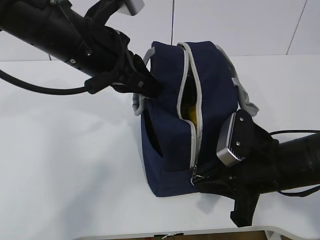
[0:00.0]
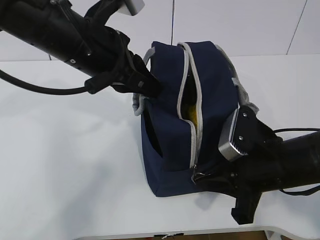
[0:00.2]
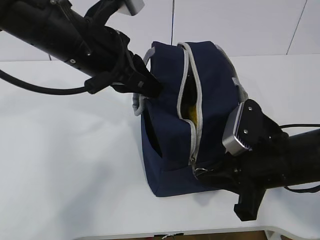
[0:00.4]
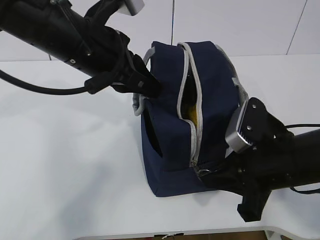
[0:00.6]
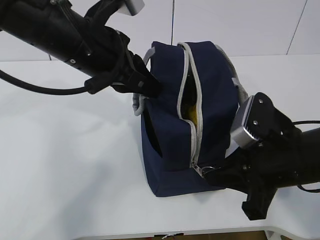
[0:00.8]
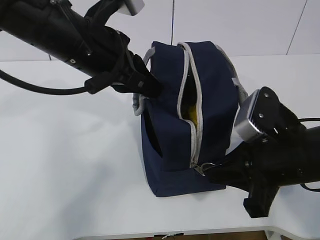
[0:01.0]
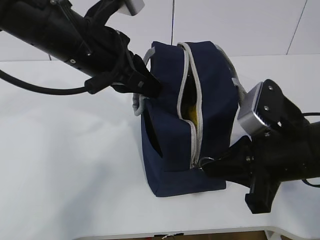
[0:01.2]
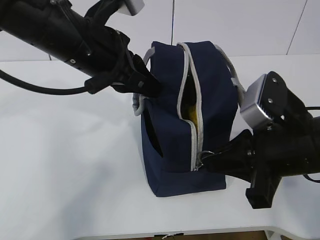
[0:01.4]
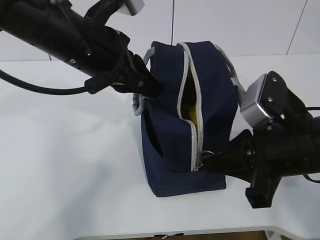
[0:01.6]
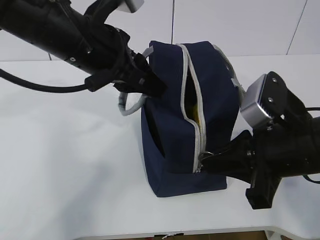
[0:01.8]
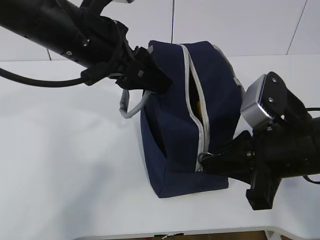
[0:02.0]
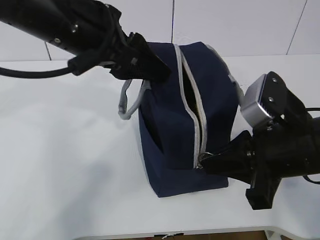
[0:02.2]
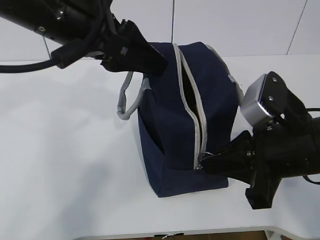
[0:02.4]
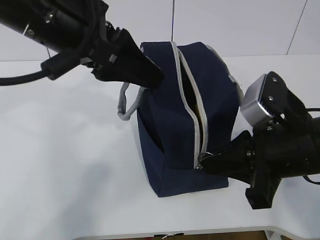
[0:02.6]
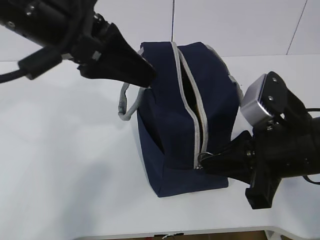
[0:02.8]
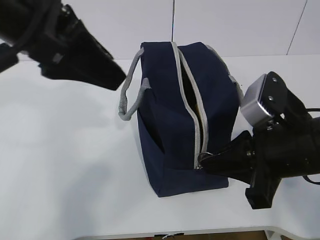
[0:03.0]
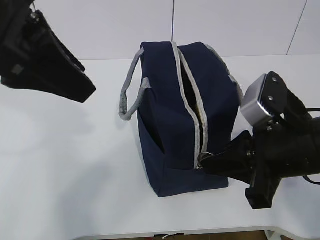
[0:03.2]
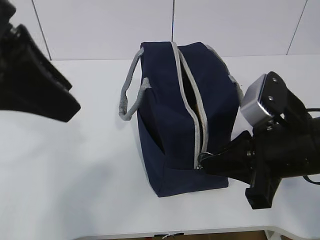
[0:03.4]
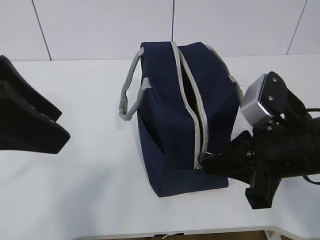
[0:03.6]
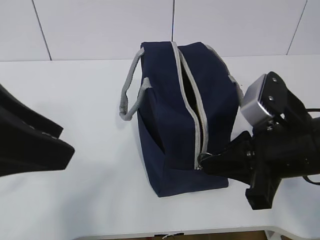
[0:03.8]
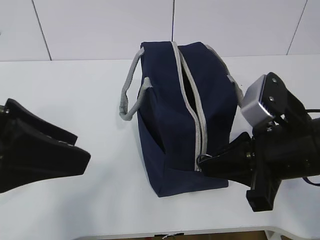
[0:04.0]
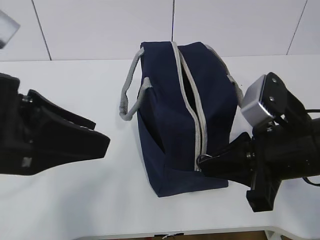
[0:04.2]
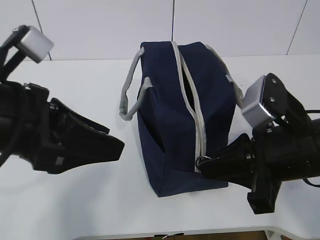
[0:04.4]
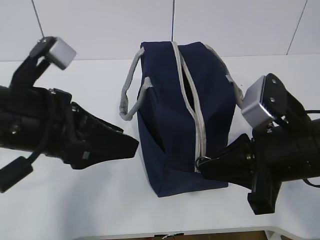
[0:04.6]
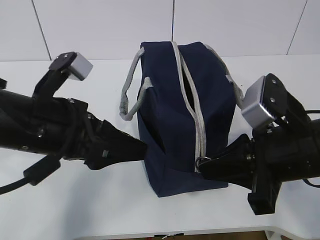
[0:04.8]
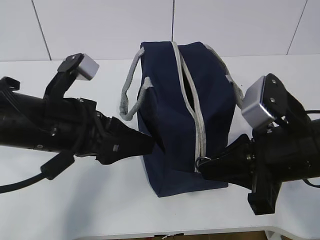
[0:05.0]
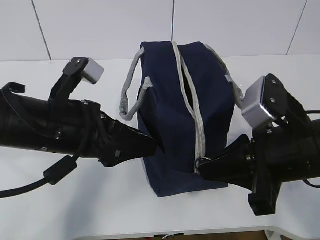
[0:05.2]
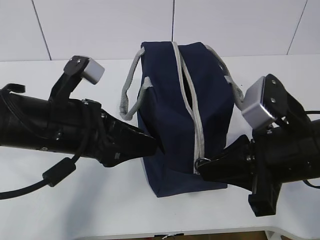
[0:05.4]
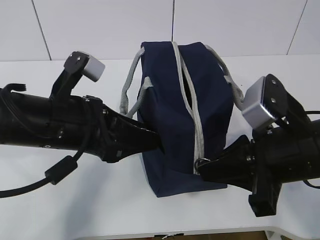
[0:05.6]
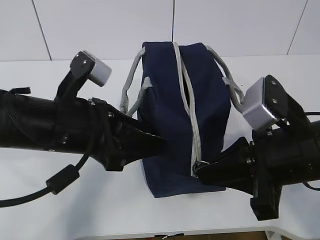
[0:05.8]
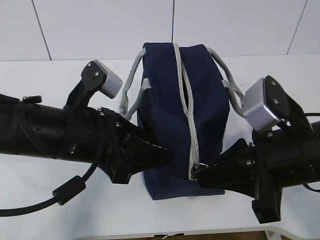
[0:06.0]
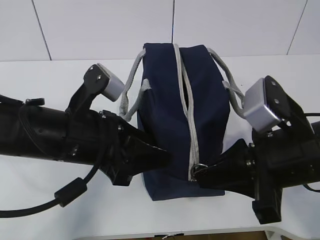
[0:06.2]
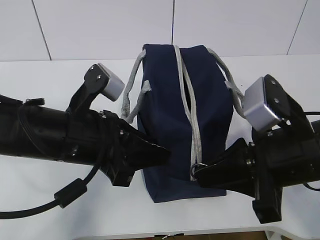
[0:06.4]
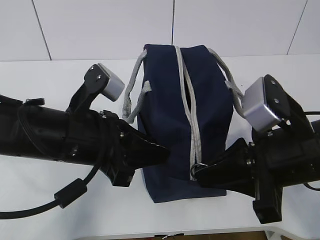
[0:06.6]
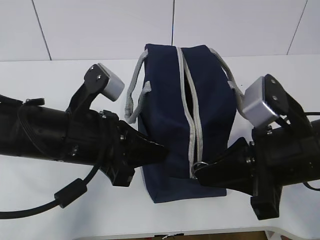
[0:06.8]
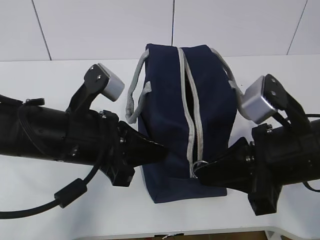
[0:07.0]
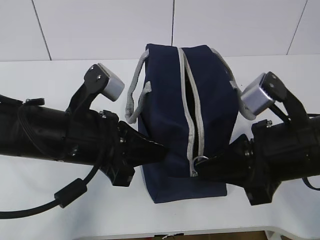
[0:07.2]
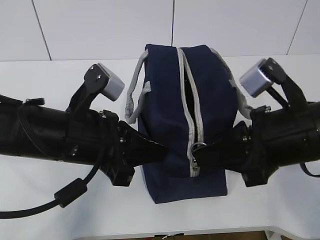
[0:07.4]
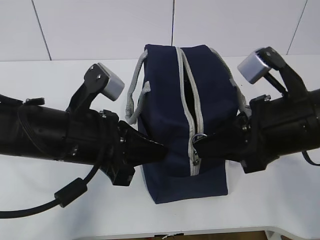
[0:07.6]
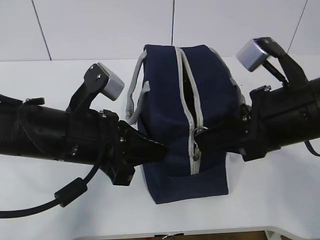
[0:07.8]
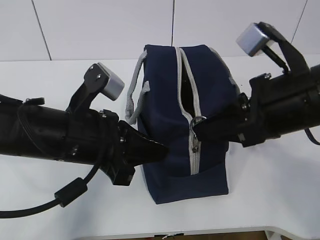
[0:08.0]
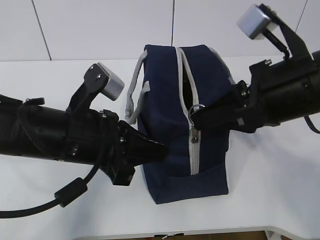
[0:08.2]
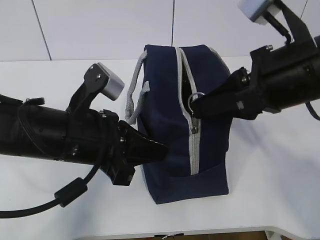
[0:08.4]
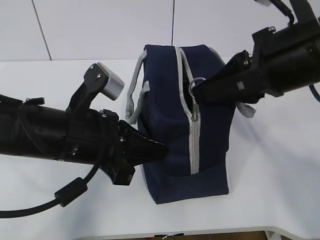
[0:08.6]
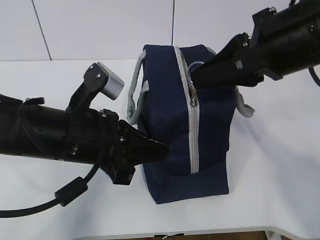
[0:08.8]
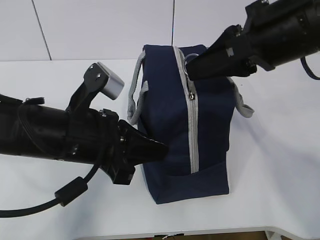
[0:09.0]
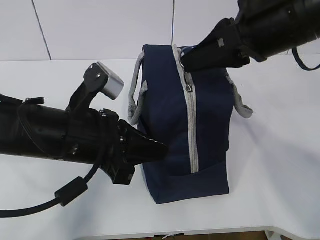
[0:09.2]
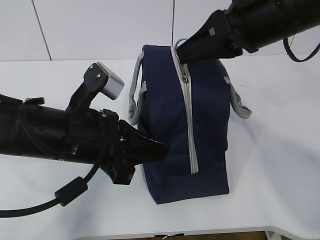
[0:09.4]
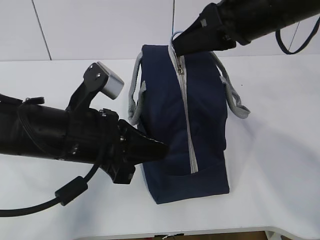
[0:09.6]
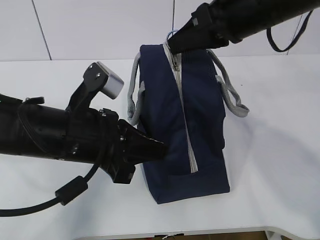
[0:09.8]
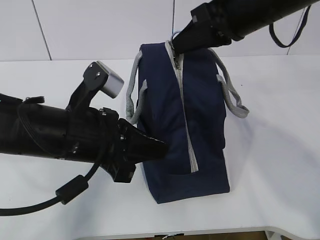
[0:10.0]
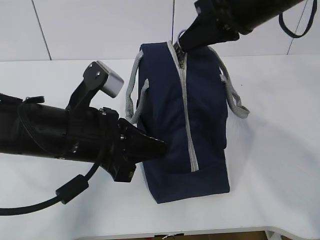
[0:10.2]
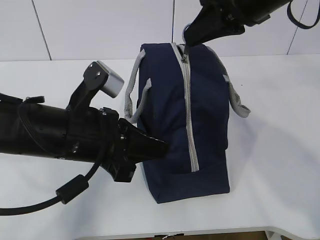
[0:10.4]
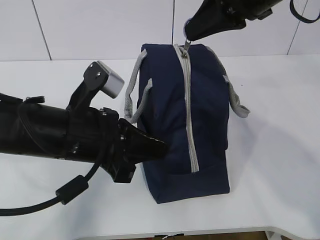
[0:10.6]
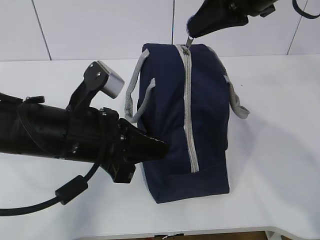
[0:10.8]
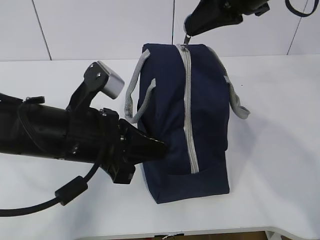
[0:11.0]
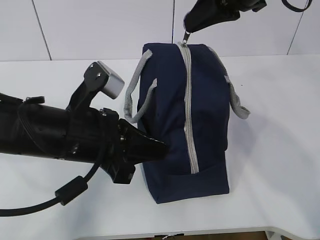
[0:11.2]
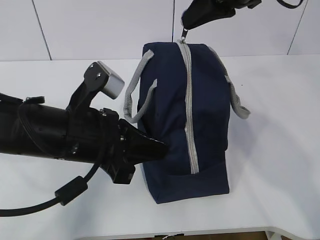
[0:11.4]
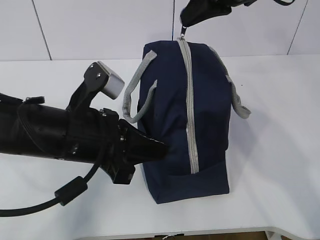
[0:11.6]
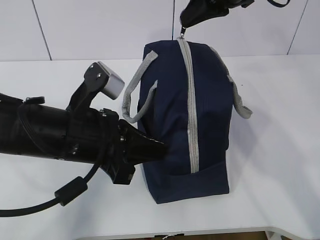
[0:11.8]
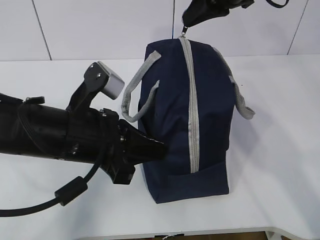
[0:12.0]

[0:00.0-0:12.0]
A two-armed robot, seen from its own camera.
Step, 0:00.0 to 0:04.4: Pull the zipper with your right hand.
Step, 0:04.6 to 0:05.4: Grab the lunch bag with your left hand.
0:00.0 to 0:01.6: The right gripper shifts about 5 cm upward.
0:01.6 to 0:03.0: The left gripper goes some 10 cm upward and backward, and opens its fingers.
0:03.0 to 0:04.4: The left gripper shifts some 10 cm downward and backward.
0:04.4 to 0:06.0: The left gripper shifts about 10 cm downward and to the right.
0:06.0 to 0:07.6: The left gripper closes its fingers.
0:07.6 to 0:09.0: The right gripper moves upward, approximately 10 cm.
0:09.0 to 0:10.4: The right gripper heads forward, covering approximately 5 cm.
0:10.4 to 0:12.0: The right gripper goes about 10 cm forward.

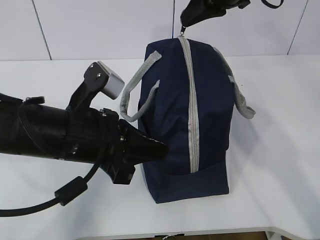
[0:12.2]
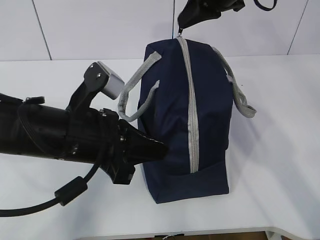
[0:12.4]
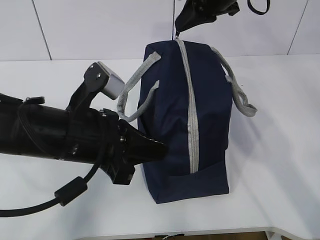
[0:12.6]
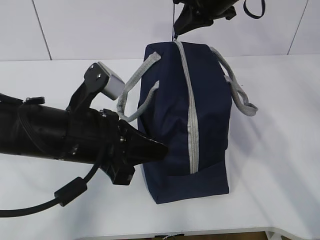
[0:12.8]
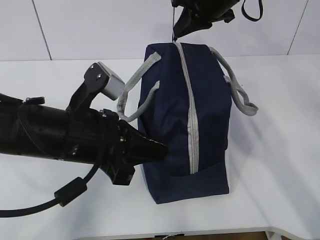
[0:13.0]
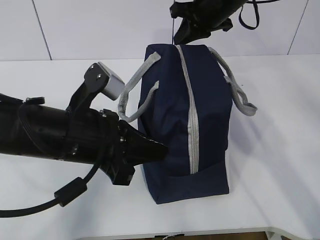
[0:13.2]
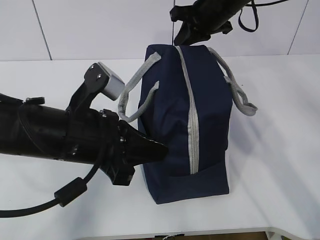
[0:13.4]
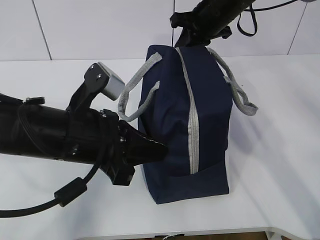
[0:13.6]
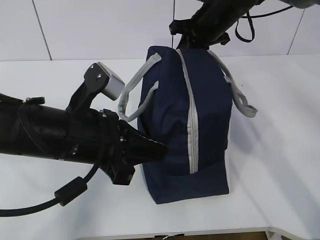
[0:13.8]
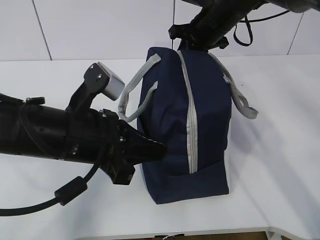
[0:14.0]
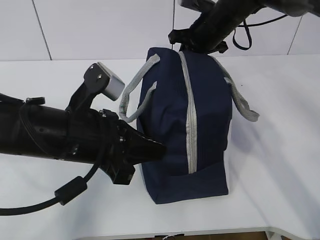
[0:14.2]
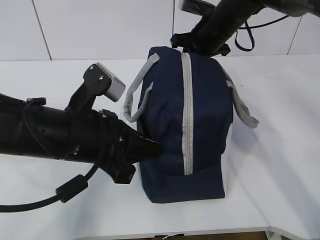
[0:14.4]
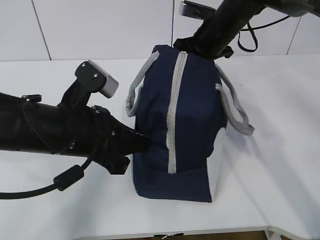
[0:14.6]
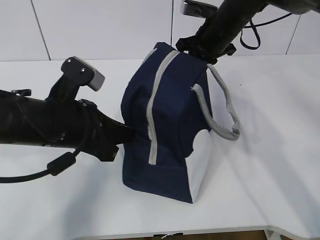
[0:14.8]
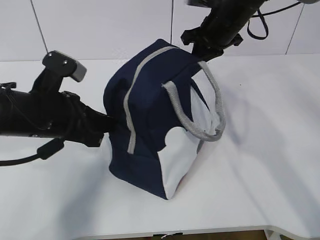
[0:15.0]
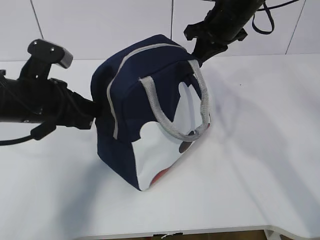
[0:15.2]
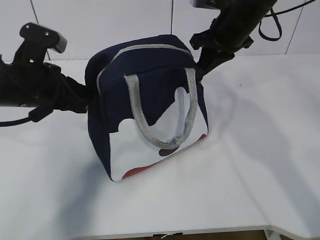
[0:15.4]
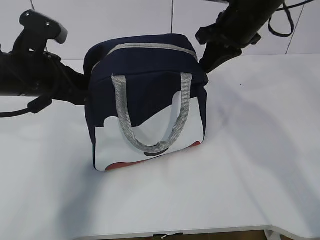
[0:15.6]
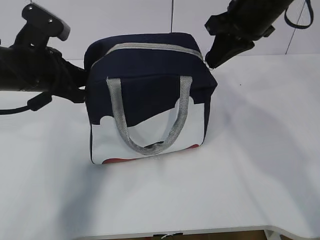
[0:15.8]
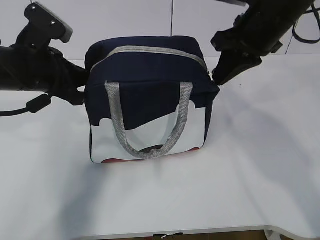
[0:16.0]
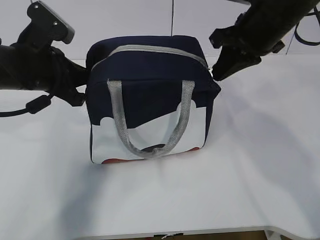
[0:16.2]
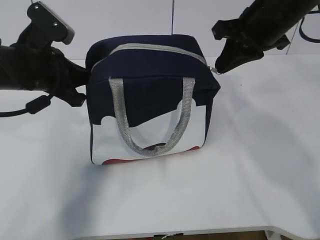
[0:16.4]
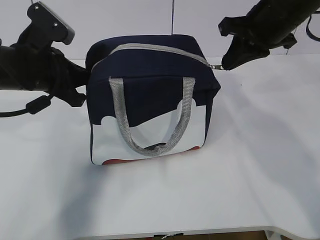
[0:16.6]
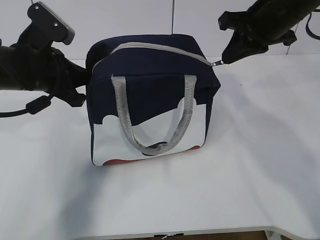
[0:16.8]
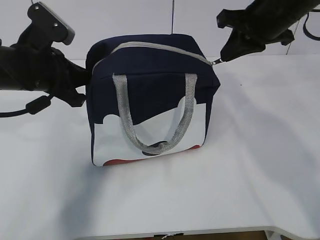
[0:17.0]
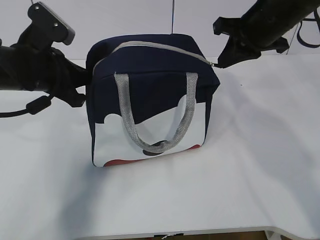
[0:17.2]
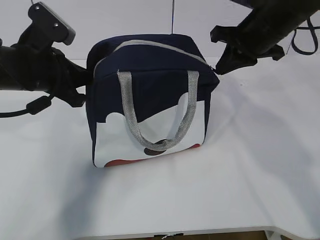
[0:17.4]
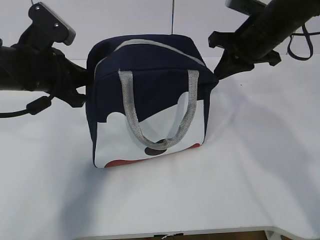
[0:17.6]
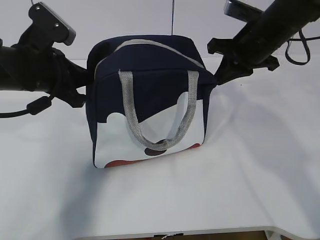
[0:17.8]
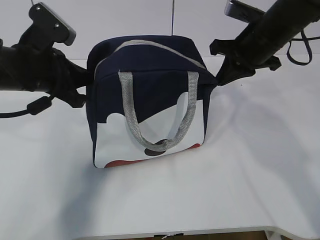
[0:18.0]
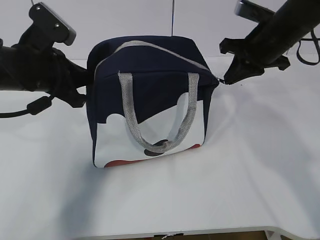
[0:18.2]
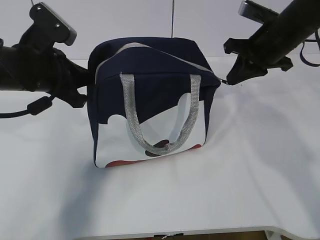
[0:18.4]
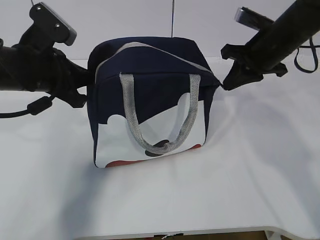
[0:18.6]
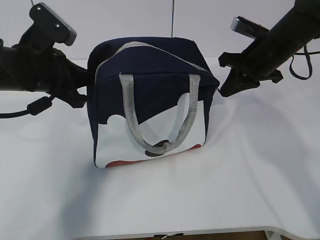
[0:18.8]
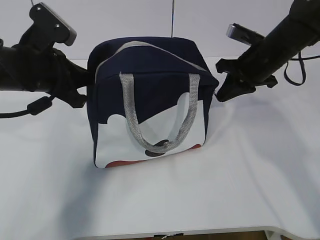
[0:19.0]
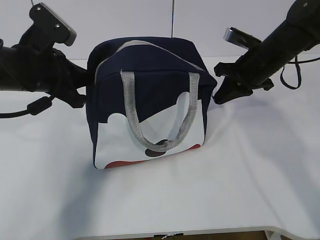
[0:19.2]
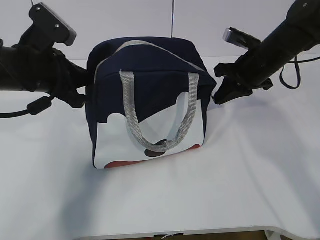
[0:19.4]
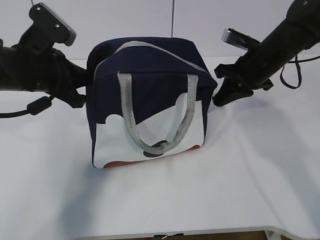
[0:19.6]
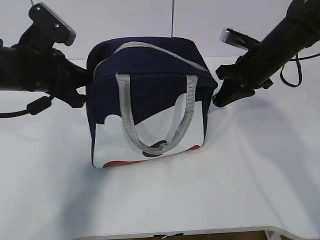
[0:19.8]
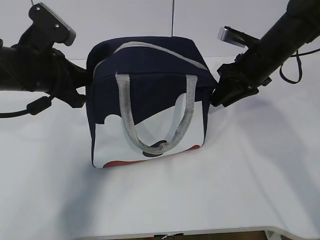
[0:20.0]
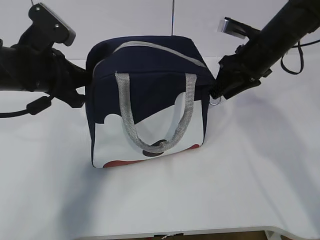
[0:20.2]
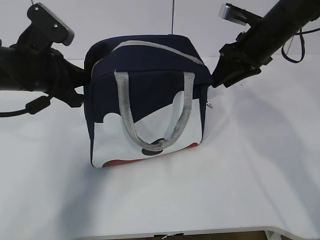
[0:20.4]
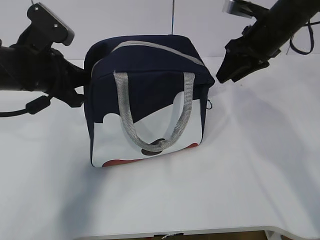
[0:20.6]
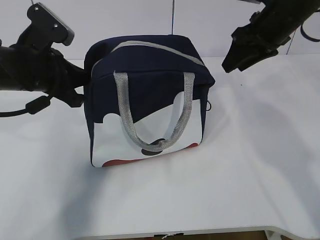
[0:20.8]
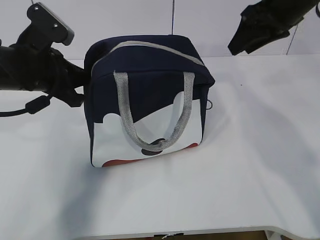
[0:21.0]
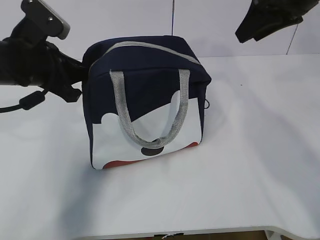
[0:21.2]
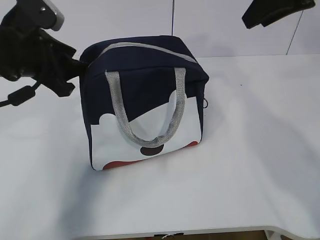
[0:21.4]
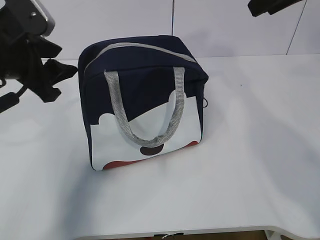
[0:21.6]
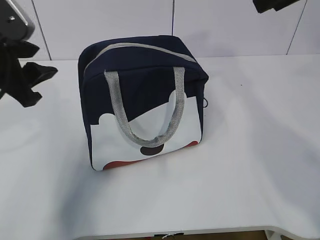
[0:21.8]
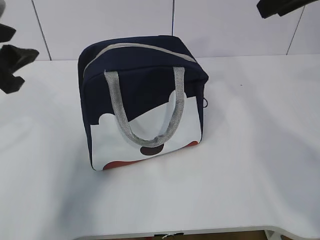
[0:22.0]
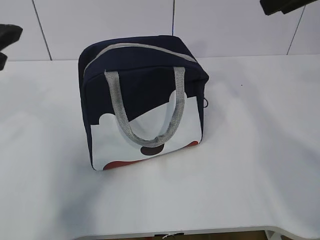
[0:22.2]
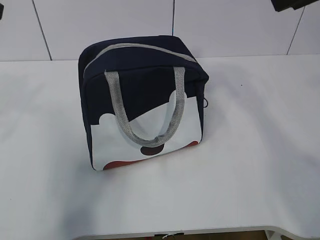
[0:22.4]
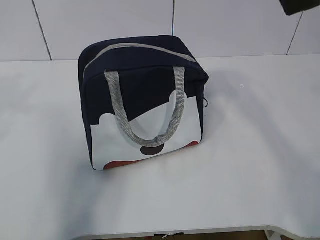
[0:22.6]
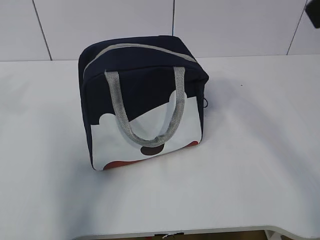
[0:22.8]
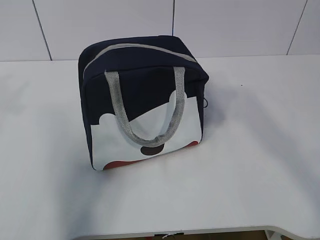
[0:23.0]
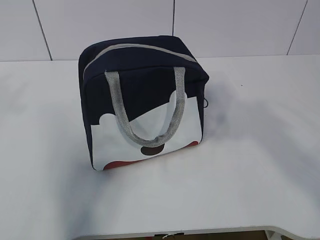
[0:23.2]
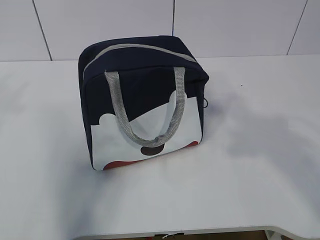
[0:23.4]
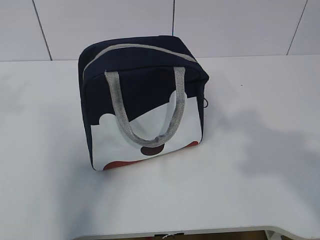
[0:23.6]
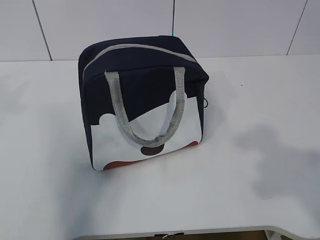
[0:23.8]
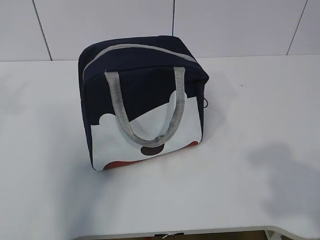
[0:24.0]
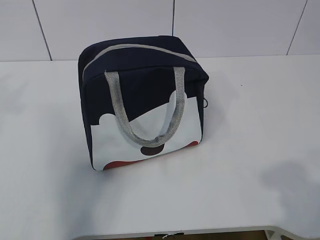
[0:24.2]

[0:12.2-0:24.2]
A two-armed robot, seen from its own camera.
0:12.2 to 0:13.8: The right gripper is displaced downward and forward by roughly 10 cm.
0:13.8 to 0:15.2: The left gripper goes about 10 cm to the left and forward.
0:15.2 to 0:16.6: The right gripper heads backward, covering approximately 10 cm.
0:16.6 to 0:18.2: The right gripper moves downward, about 5 cm.
0:18.2 to 0:19.8: The right gripper changes place by about 5 cm.
0:19.8 to 0:21.2: The right gripper is displaced upward by about 15 cm, and opens.
0:21.2 to 0:22.6: The left gripper is displaced upward, backward and to the left by roughly 20 cm, and opens up; the right gripper heads backward and upward, covering approximately 15 cm.
0:22.6 to 0:24.2: The right gripper heads backward and downward, covering some 25 cm.
